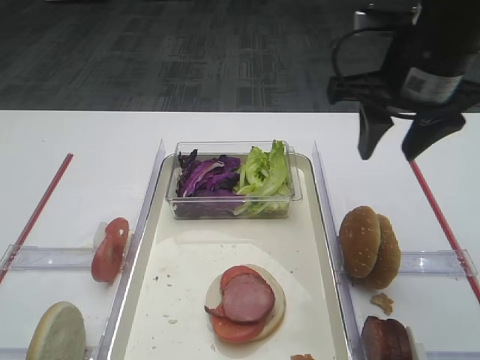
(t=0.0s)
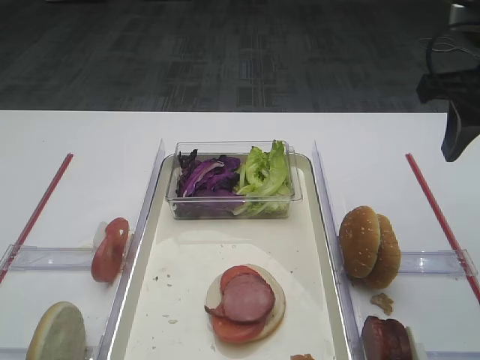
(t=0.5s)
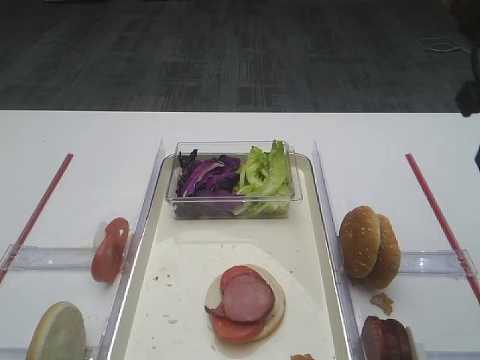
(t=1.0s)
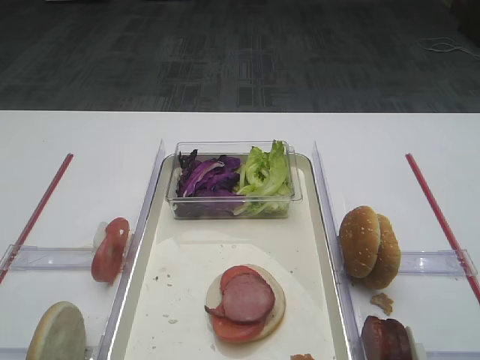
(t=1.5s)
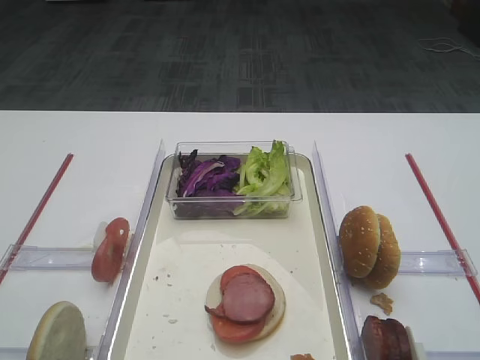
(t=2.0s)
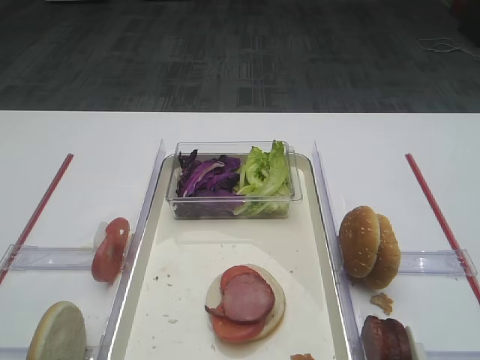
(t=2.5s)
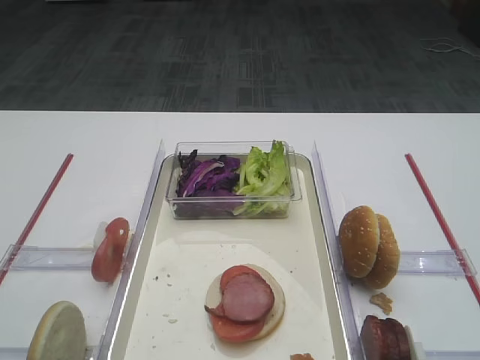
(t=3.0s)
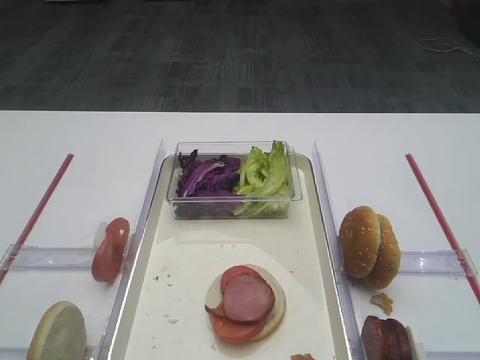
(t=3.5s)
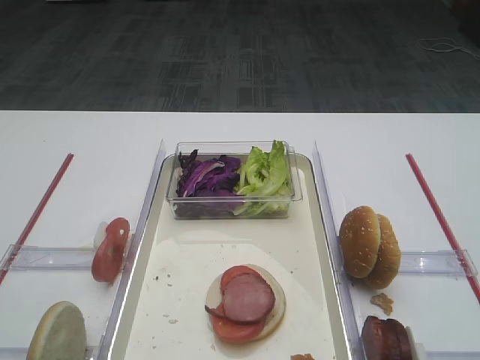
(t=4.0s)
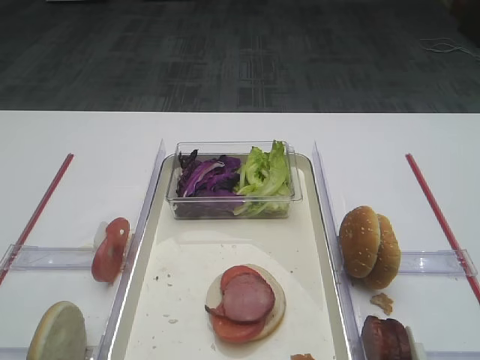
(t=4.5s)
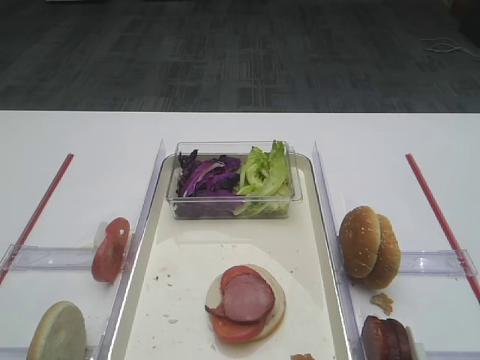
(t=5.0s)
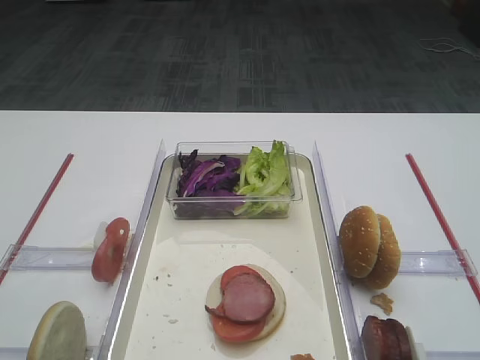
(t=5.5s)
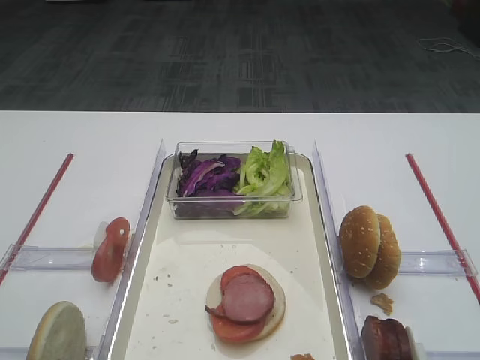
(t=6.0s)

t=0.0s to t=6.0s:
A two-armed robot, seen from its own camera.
t=0.0s to t=2.0s: The right gripper moves backward, about 25 cm.
t=4.0s to t=6.0s: Neither gripper changes place.

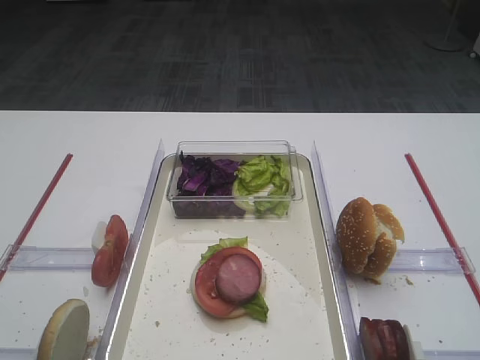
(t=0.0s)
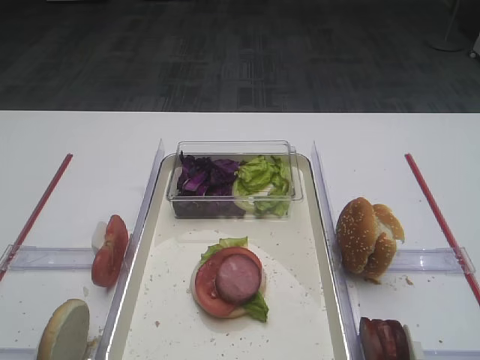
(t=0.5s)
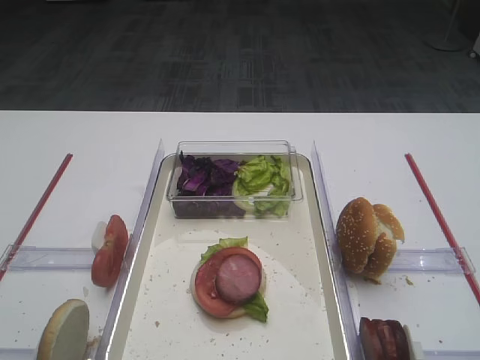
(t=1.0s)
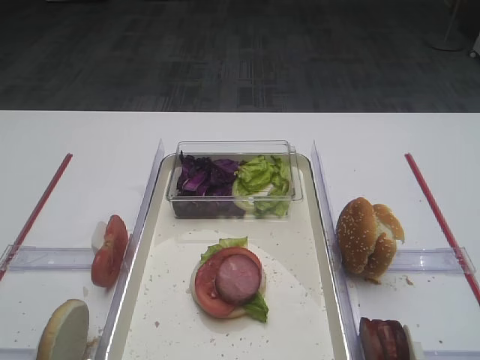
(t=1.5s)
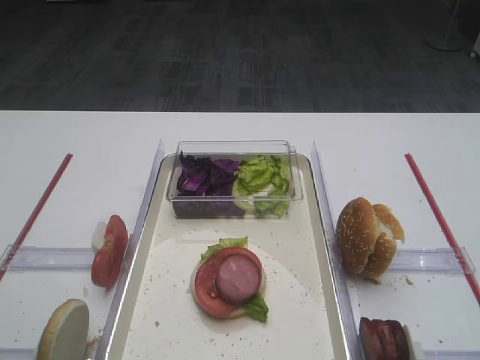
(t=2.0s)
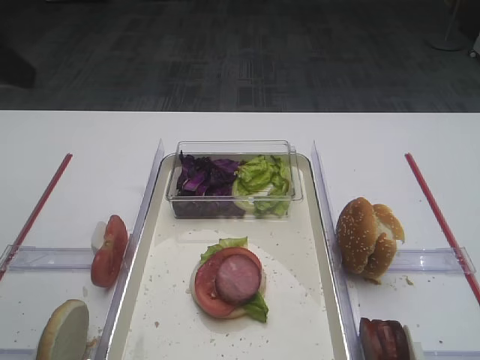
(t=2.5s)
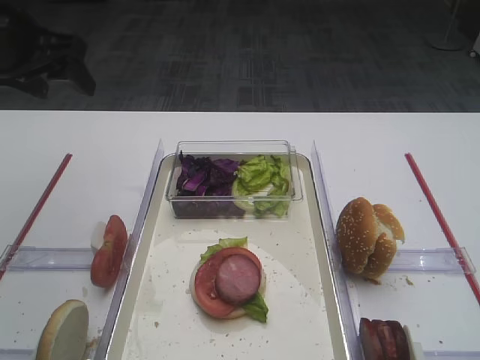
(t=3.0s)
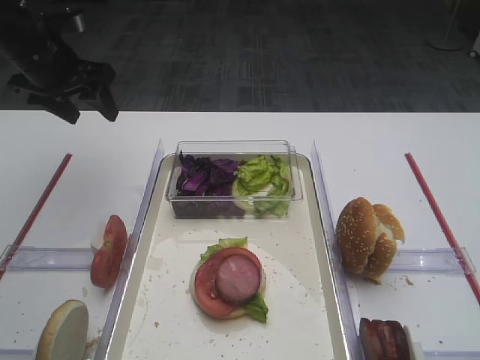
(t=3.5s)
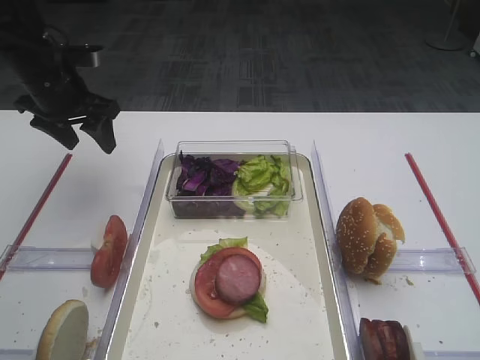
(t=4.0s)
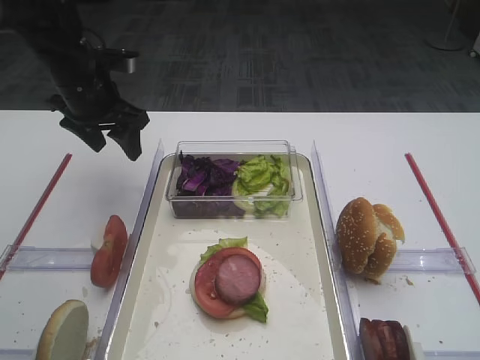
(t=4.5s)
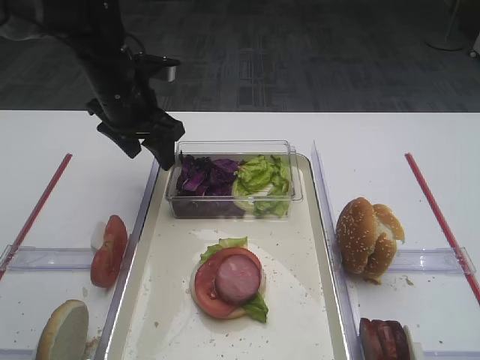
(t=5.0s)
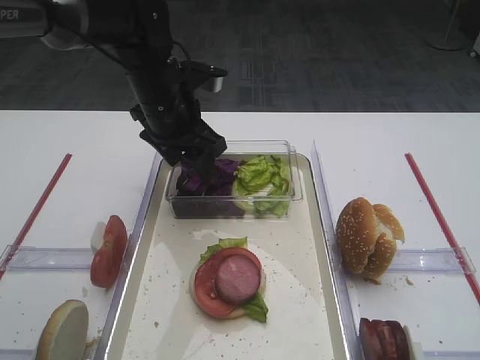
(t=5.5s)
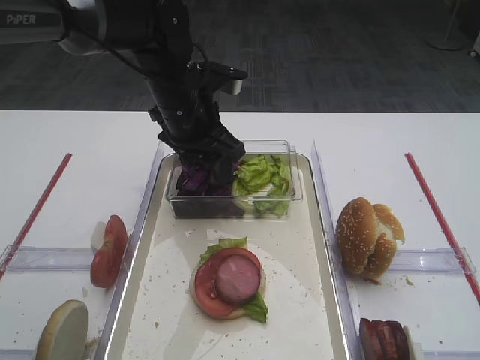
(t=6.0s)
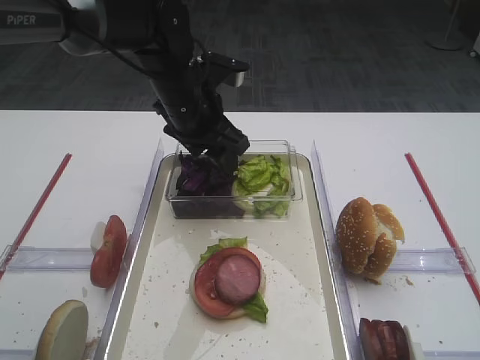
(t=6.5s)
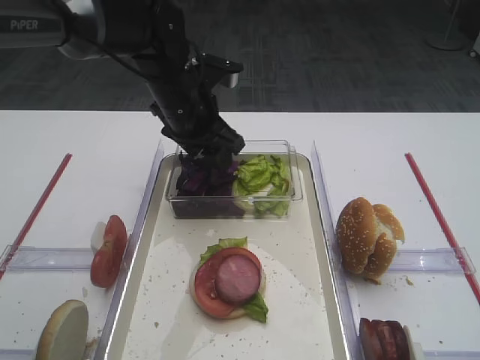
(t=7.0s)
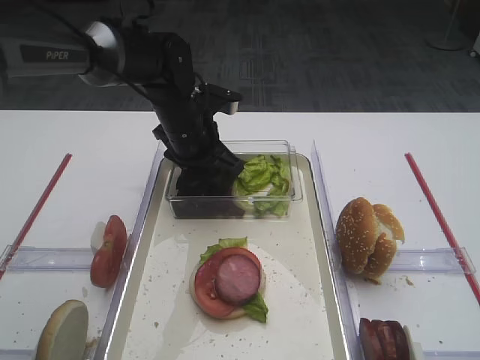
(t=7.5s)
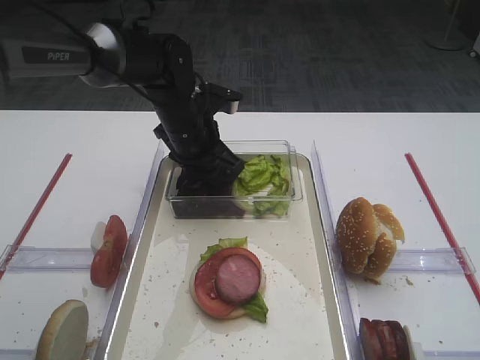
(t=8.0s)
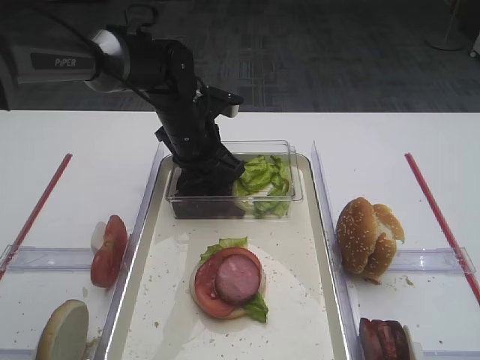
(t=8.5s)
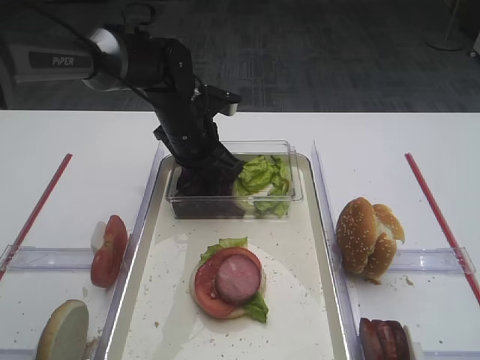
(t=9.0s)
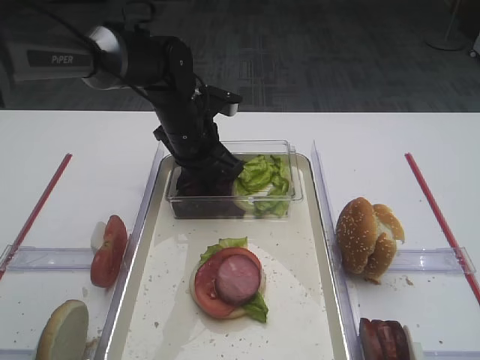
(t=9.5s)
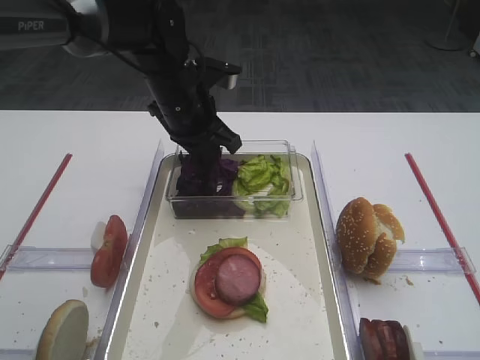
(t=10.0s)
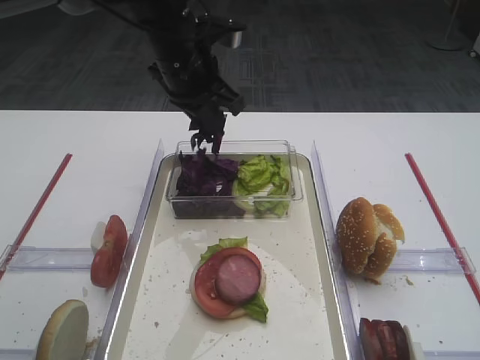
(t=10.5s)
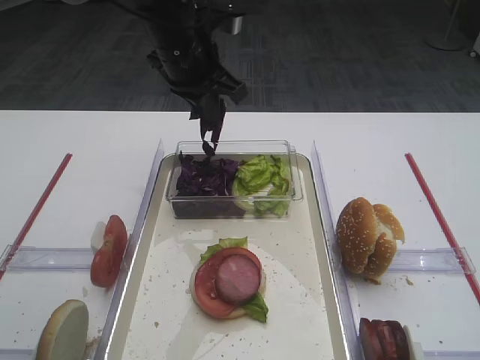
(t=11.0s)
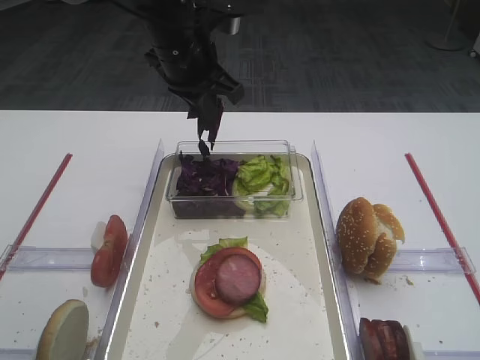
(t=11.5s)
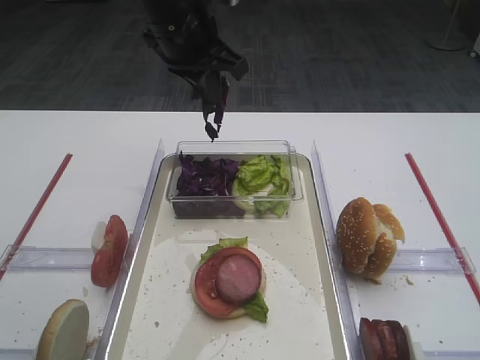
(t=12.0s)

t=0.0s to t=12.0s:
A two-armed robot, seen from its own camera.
Step, t=0.0s to t=12.0s: Pick up the purple cabbage with the left gripper.
t=2.0s to t=4.0s: The left gripper goes roughly 40 cm forward.
t=4.0s to t=6.0s: The left gripper travels to the right by some 20 cm.
t=6.0s to t=8.0s: The left gripper shifts by about 5 cm.
t=8.0s to t=10.0s: The left gripper closes.
t=10.0s to t=12.0s: The left gripper goes approximately 10 cm upward.

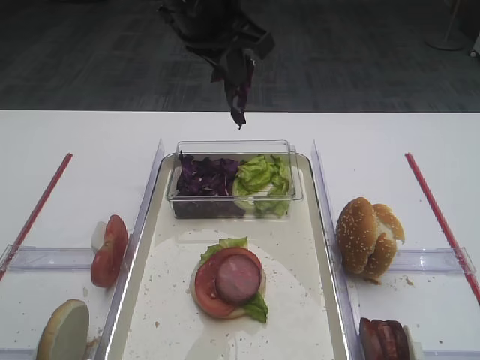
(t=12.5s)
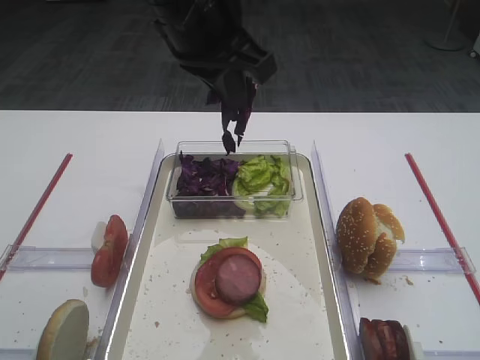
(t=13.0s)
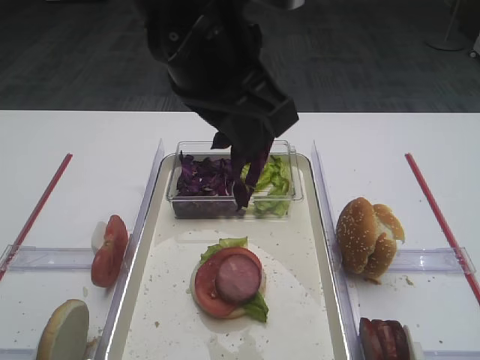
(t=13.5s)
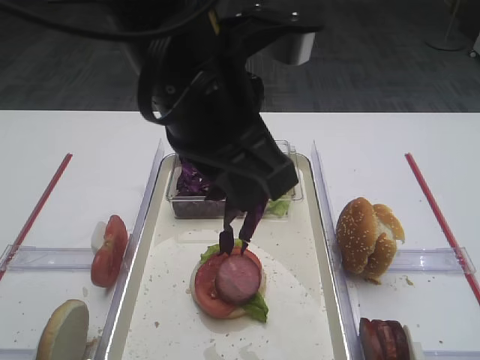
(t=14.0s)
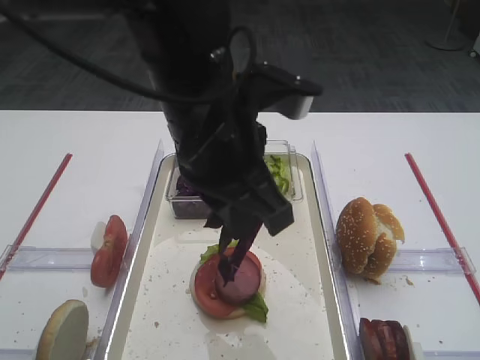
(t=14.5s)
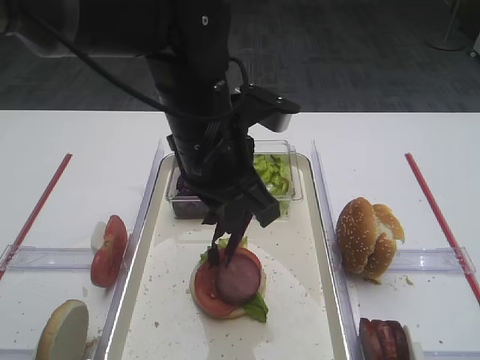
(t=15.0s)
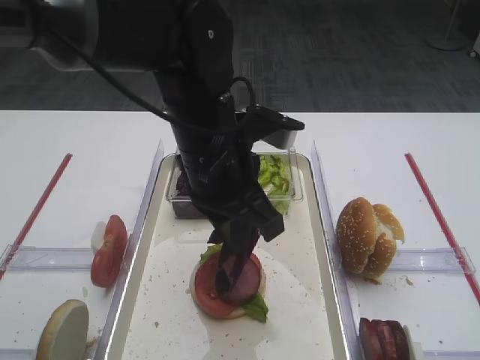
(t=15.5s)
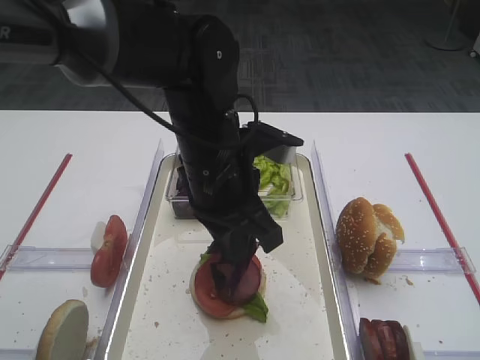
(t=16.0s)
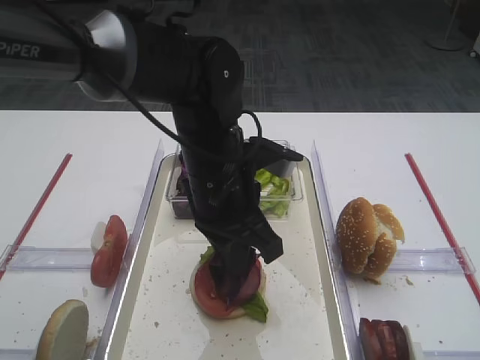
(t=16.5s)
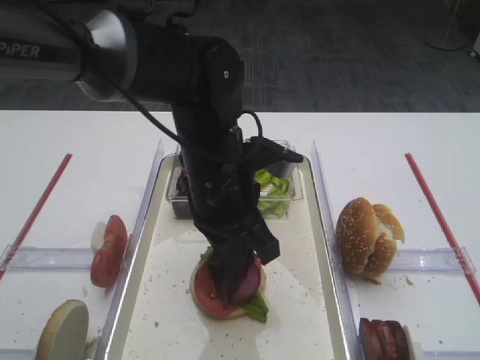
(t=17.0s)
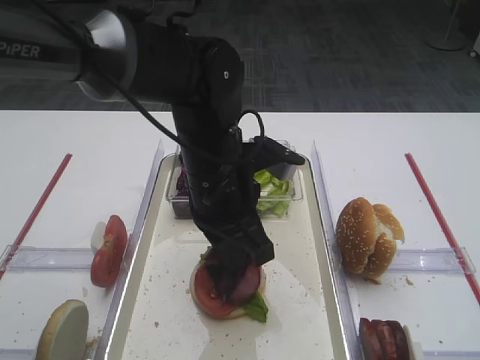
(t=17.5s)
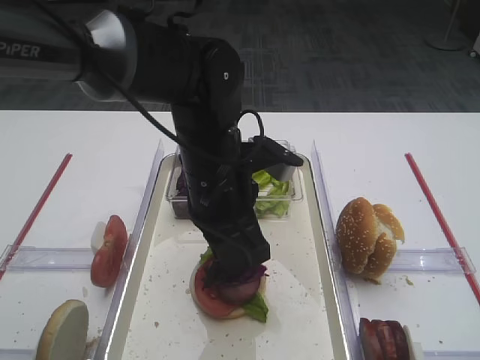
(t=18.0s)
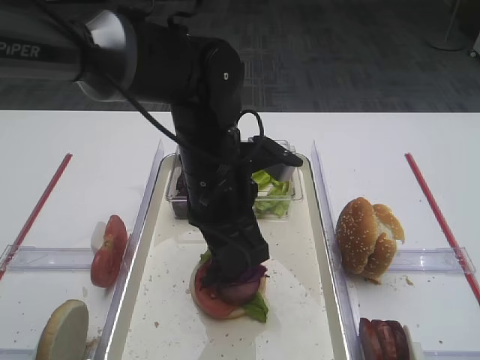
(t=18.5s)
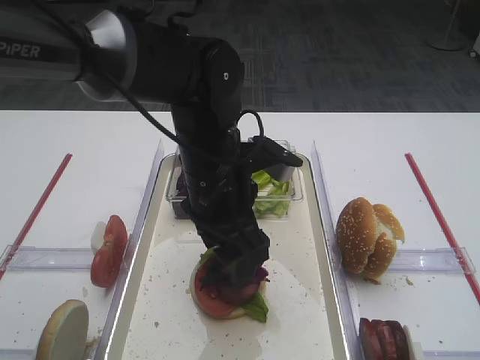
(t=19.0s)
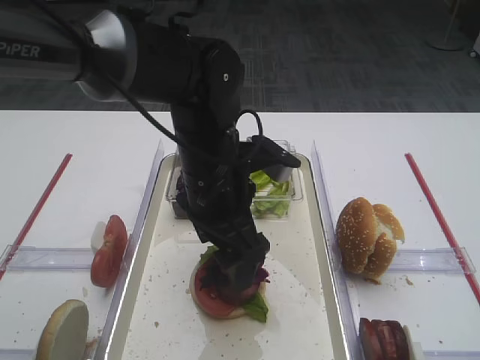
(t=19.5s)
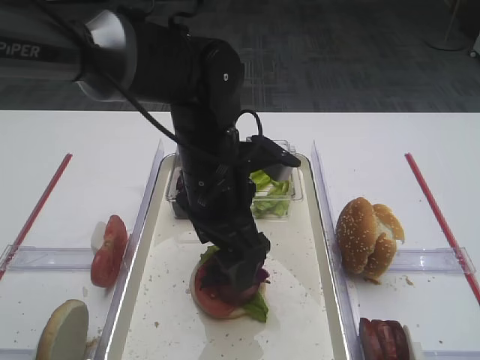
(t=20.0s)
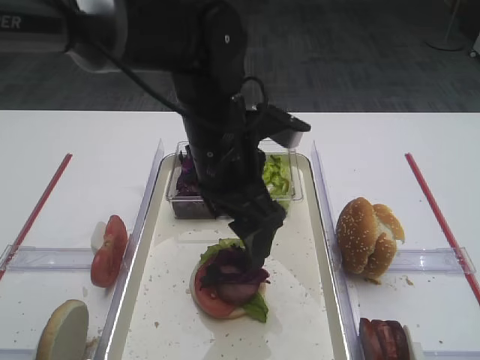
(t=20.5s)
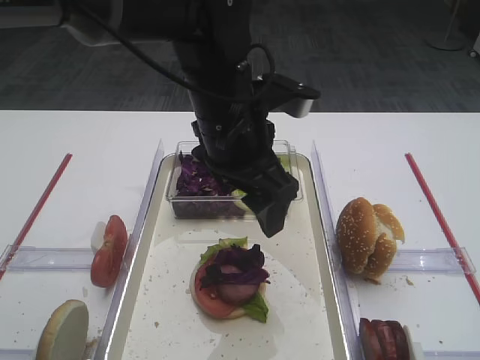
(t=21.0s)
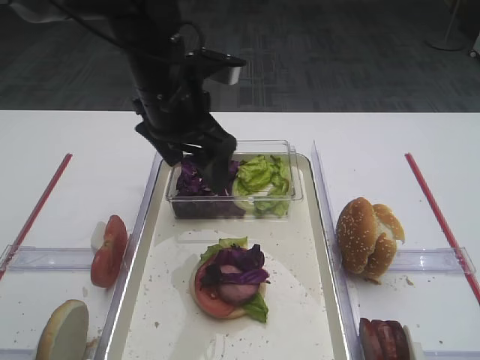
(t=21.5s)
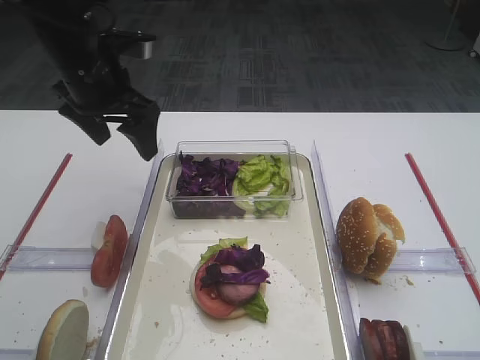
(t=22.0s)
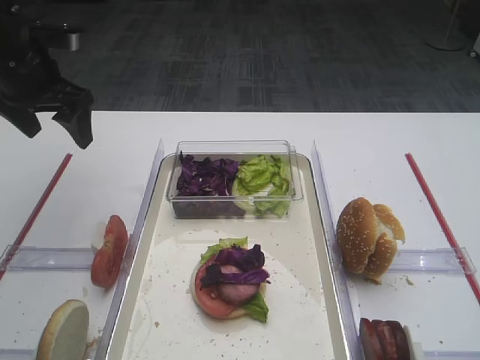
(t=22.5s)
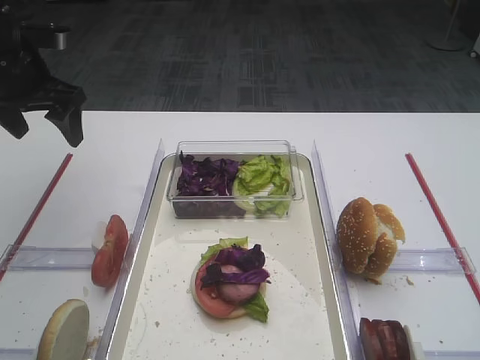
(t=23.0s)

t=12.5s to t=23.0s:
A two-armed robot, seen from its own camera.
Step, t=12.5s to t=20.5s: Place the purple cabbage on the cutlet with the left gripper.
t=12.5s to t=14.5s: The left gripper goes about 15 cm backward.
t=14.5s to t=16.5s: The left gripper moves downward, approximately 10 cm.
t=16.5s to t=19.0s: The left gripper opens.
t=19.0s to t=21.0s: The left gripper moves upward, about 5 cm.
t=21.0s to t=23.0s: The left gripper travels to the left by roughly 25 cm.
